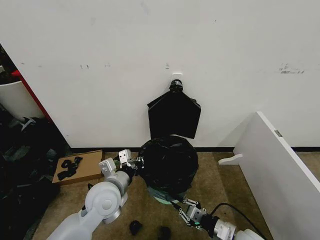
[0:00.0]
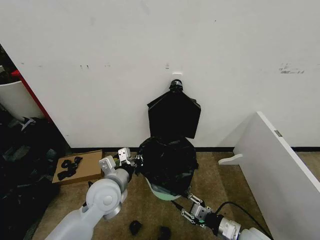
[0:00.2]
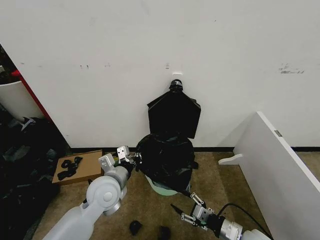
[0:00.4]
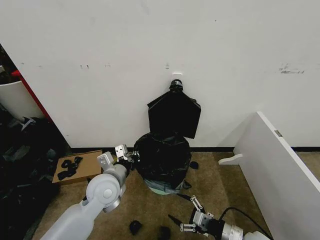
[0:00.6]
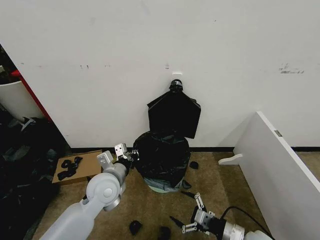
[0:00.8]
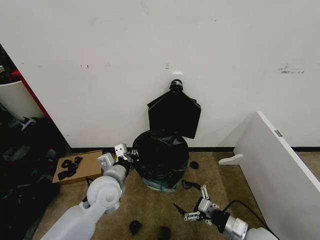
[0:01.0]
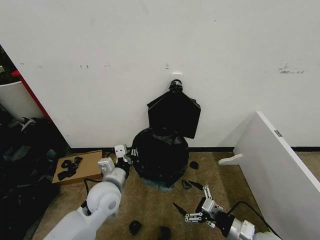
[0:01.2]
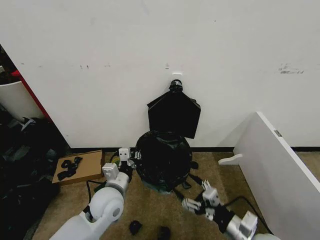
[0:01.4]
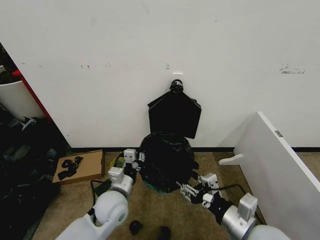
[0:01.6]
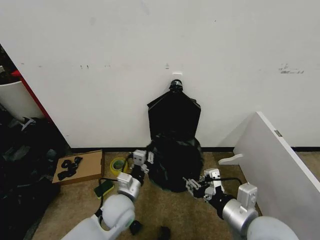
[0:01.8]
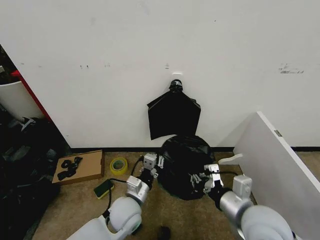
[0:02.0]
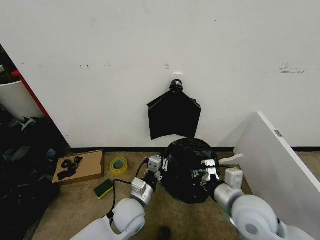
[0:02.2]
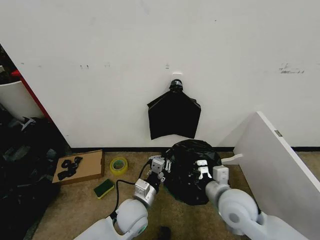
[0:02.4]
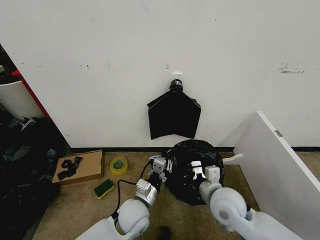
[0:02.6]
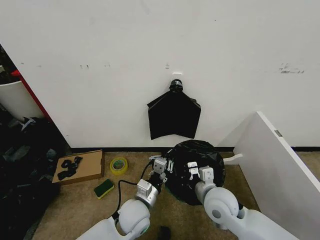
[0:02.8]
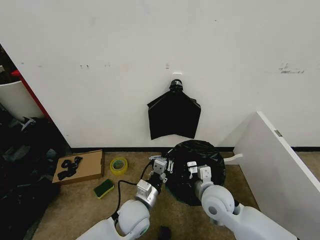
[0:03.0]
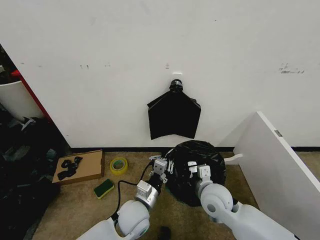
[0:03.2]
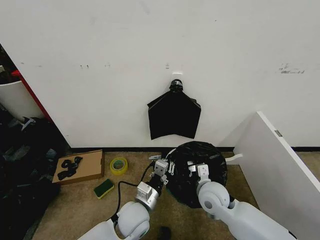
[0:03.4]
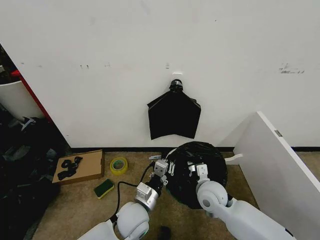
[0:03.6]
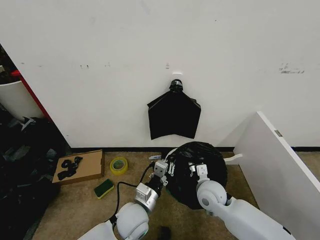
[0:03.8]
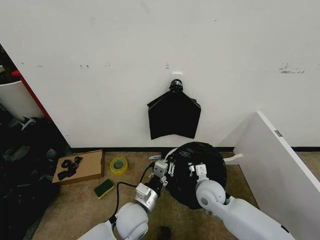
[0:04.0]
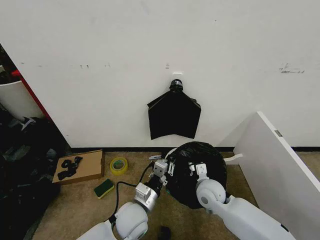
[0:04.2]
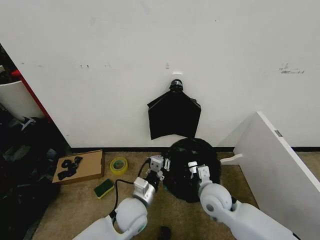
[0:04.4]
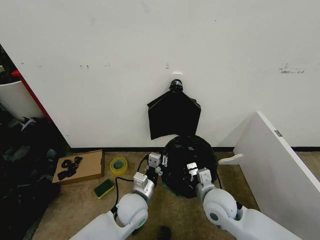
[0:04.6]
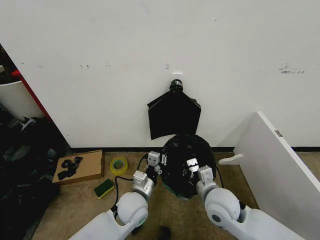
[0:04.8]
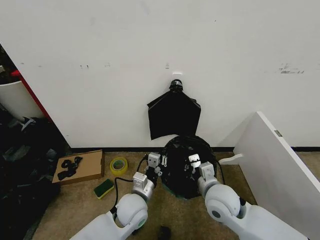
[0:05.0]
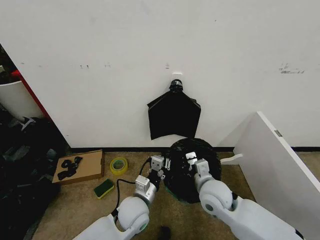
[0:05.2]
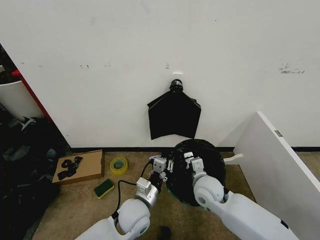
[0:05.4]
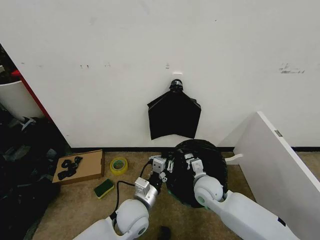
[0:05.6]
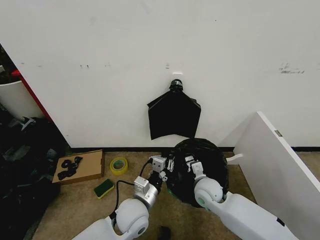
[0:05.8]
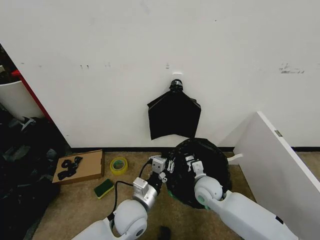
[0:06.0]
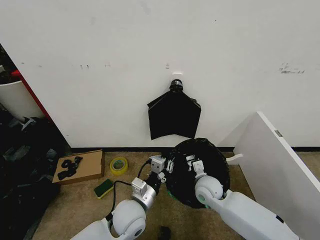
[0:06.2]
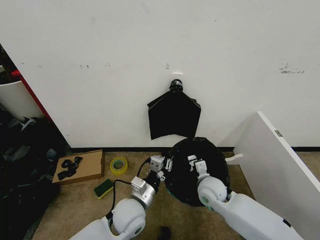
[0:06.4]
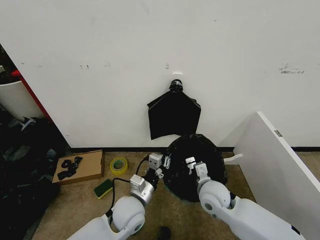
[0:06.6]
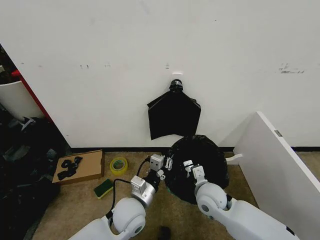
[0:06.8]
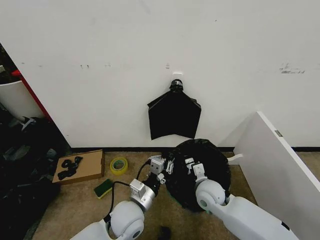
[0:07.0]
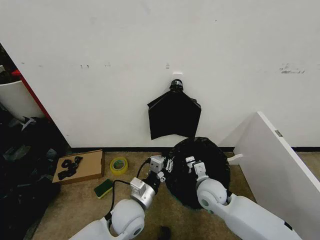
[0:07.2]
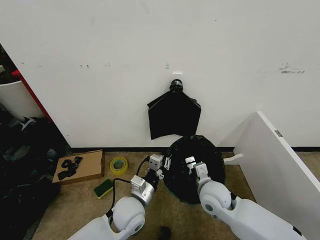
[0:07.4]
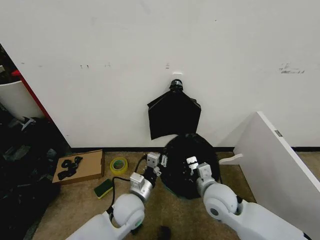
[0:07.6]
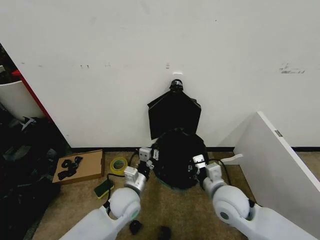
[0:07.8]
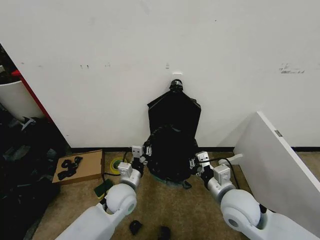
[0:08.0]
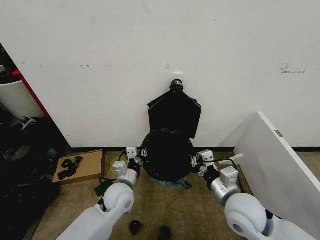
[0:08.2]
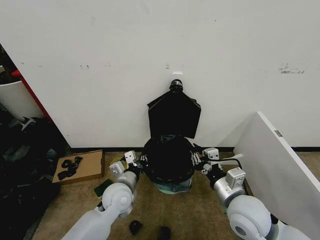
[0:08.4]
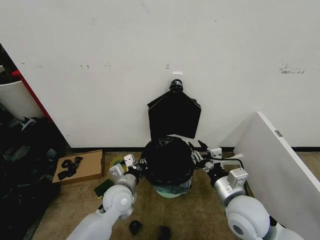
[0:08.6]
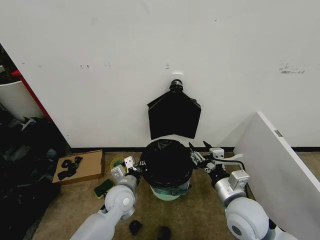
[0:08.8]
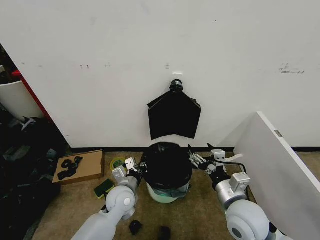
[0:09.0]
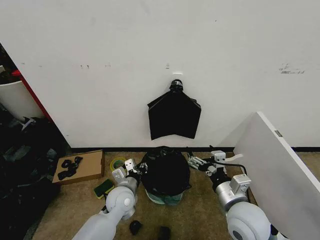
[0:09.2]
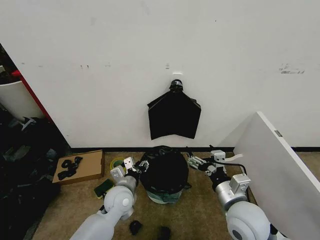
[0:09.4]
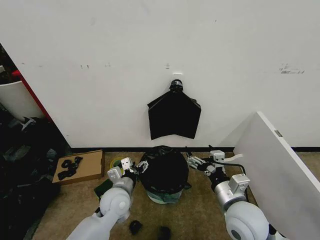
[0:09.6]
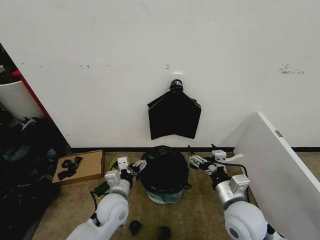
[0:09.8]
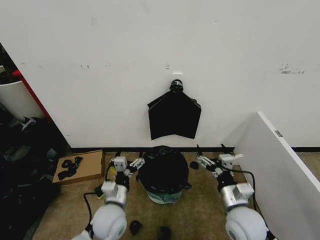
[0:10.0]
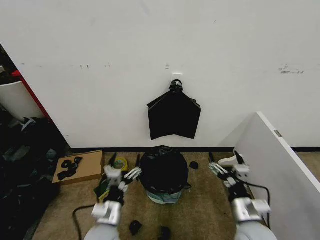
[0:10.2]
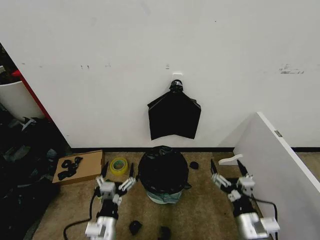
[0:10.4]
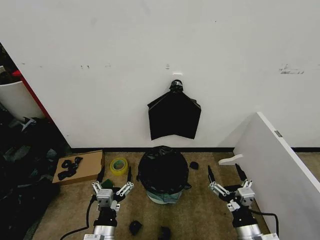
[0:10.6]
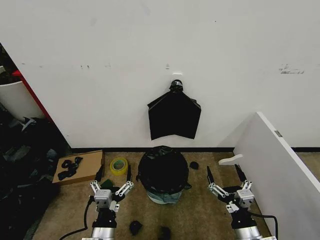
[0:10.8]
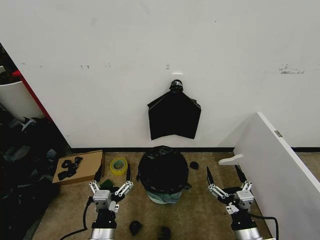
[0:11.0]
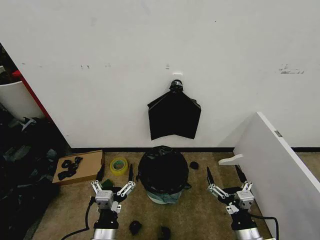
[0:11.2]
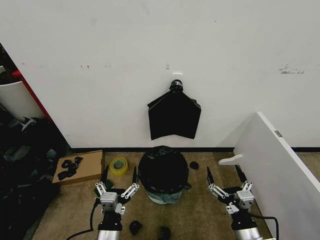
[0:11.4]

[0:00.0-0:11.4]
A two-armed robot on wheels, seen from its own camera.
Task of the whole recording: Place the garbage bag over the trash bin.
0:00.0 to 0:01.4: The right gripper heads upward, covering approximately 10 cm, and opens.
0:01.4 to 0:02.8: The right gripper travels forward and to the left by about 15 cm, and closes up, while the left gripper moves to the right, about 10 cm.
0:02.8 to 0:04.2: The right gripper moves downward and forward, roughly 10 cm.
0:05.6 to 0:07.2: The grippers make only small movements.
0:07.2 to 0:08.6: The right gripper is displaced backward and upward by roughly 15 cm, and opens up; the left gripper is displaced forward by approximately 5 cm.
0:08.6 to 0:10.0: The left gripper heads backward, covering some 5 cm, and opens its fingers. The right gripper moves downward, some 5 cm, and opens.
0:10.0 to 0:11.4: Both grippers travel together backward, roughly 10 cm.
